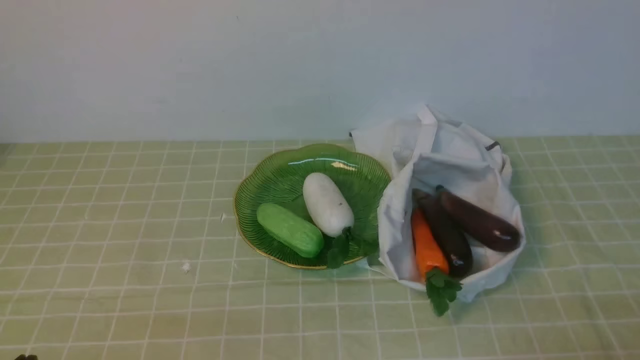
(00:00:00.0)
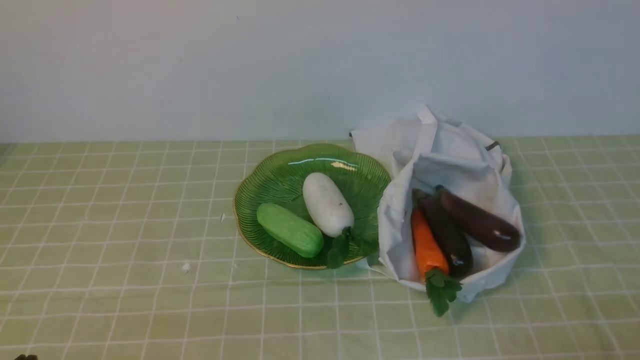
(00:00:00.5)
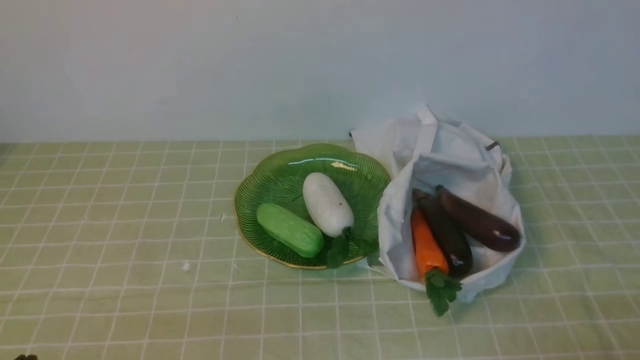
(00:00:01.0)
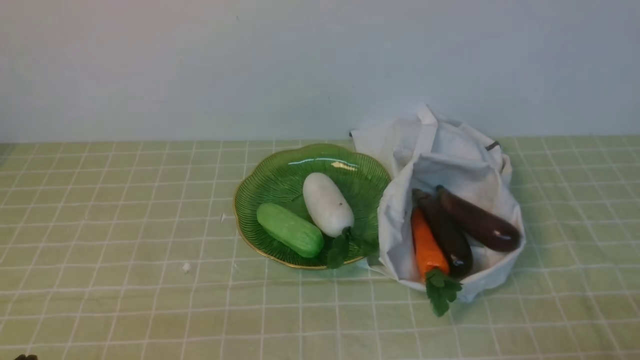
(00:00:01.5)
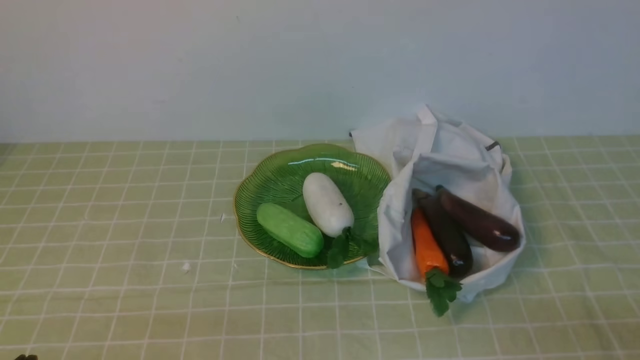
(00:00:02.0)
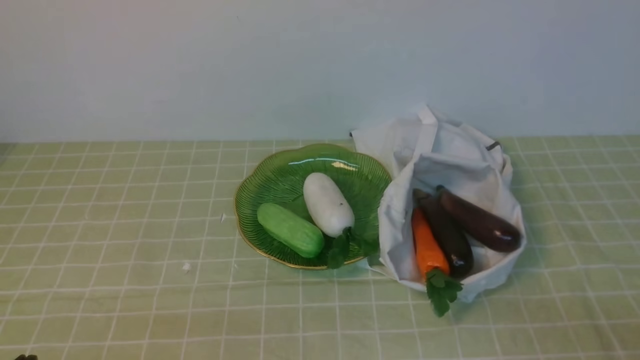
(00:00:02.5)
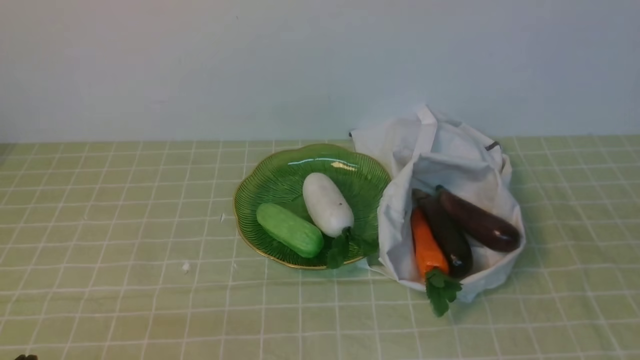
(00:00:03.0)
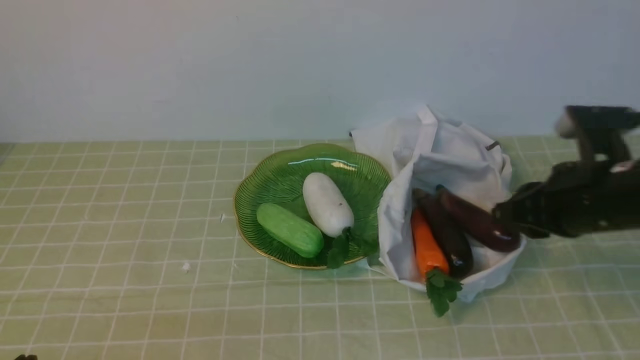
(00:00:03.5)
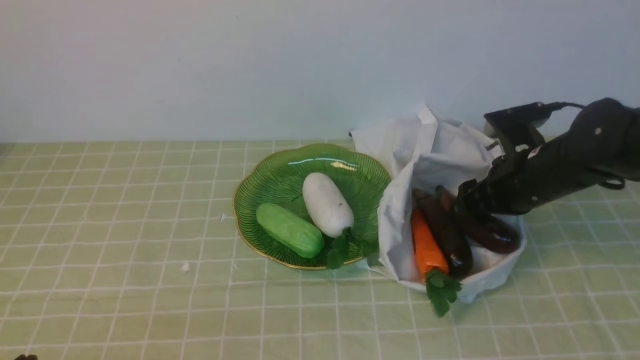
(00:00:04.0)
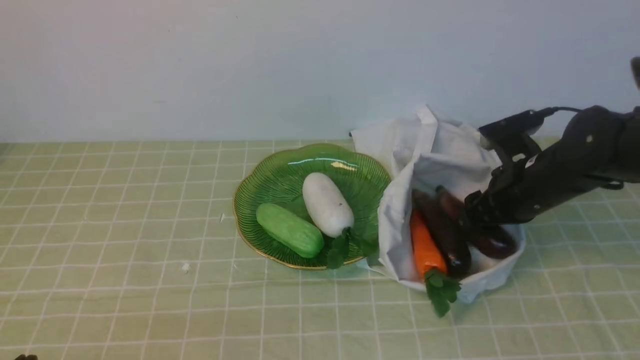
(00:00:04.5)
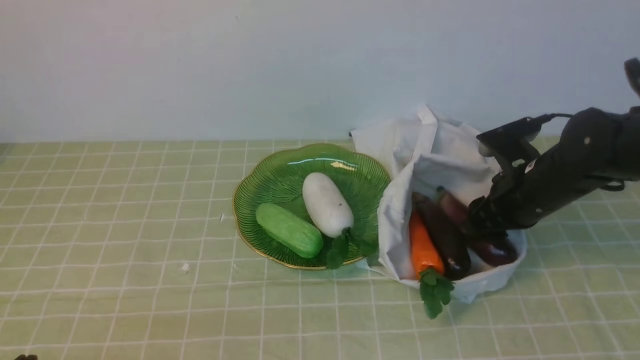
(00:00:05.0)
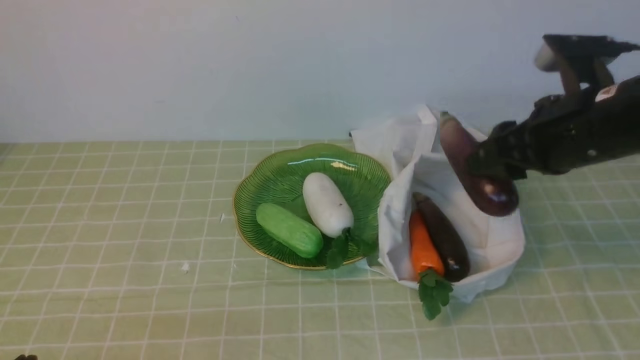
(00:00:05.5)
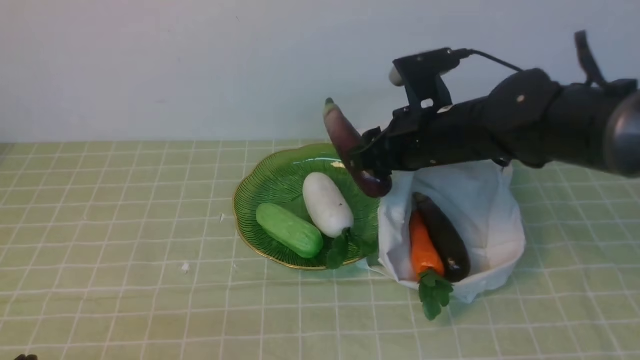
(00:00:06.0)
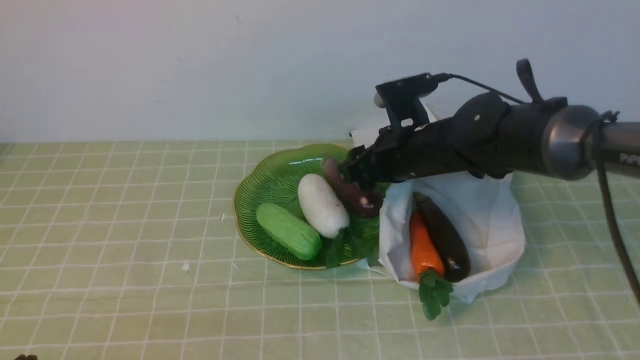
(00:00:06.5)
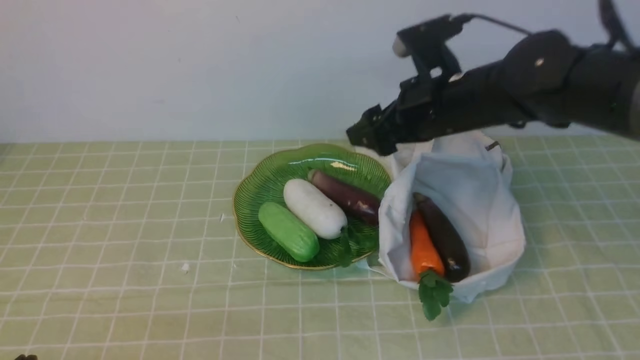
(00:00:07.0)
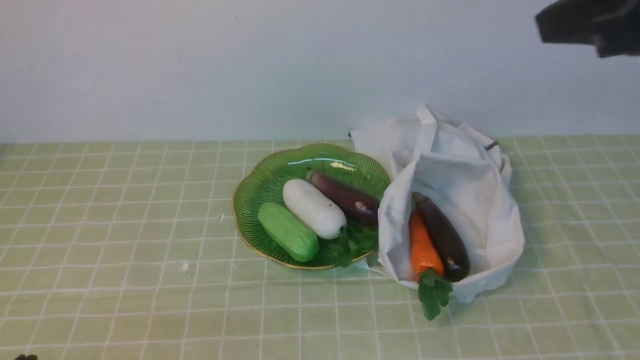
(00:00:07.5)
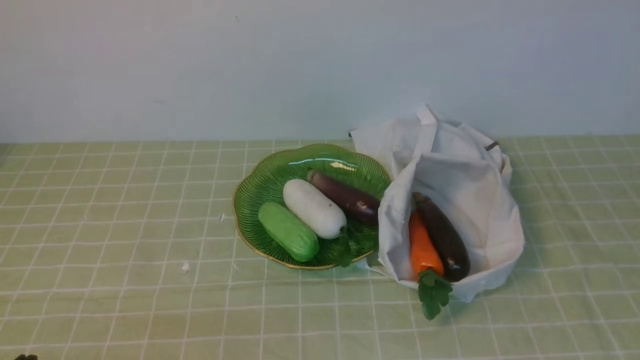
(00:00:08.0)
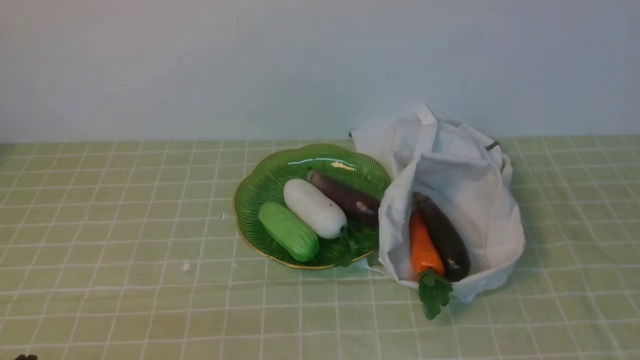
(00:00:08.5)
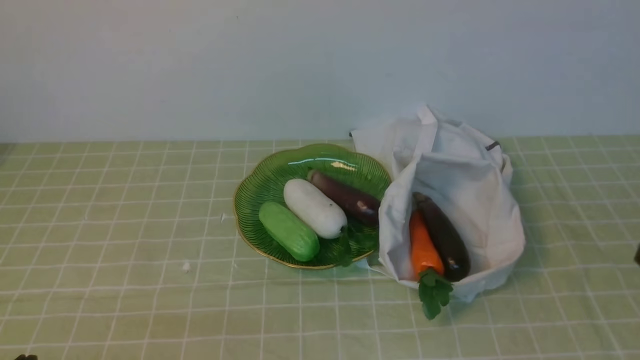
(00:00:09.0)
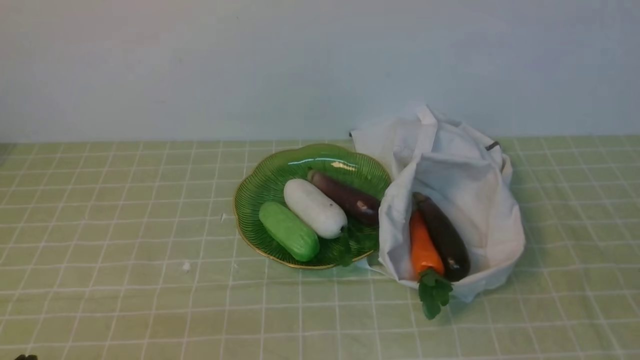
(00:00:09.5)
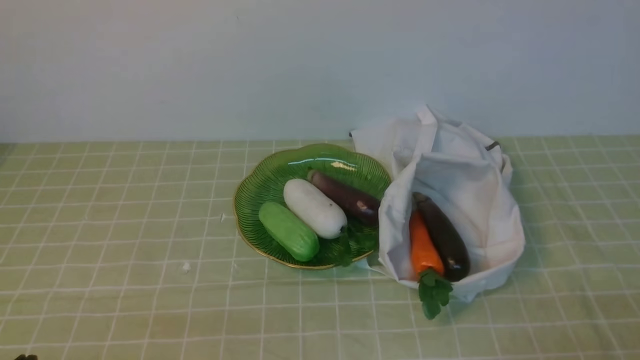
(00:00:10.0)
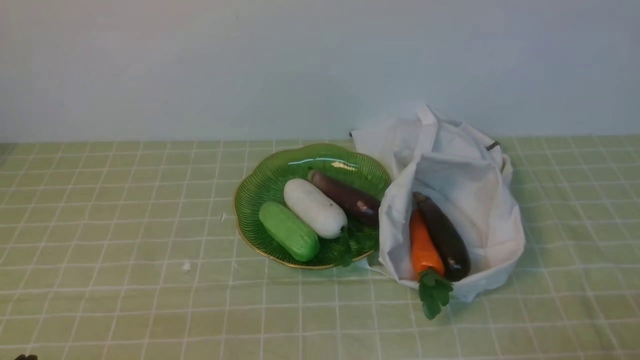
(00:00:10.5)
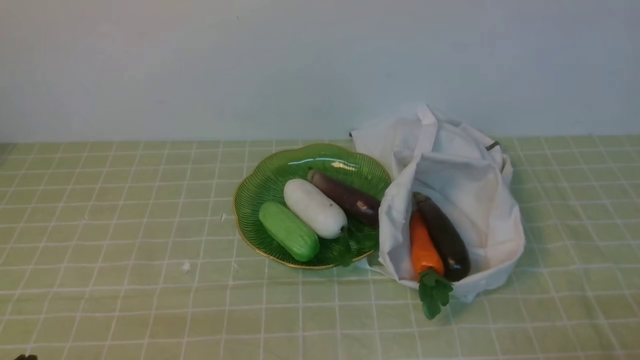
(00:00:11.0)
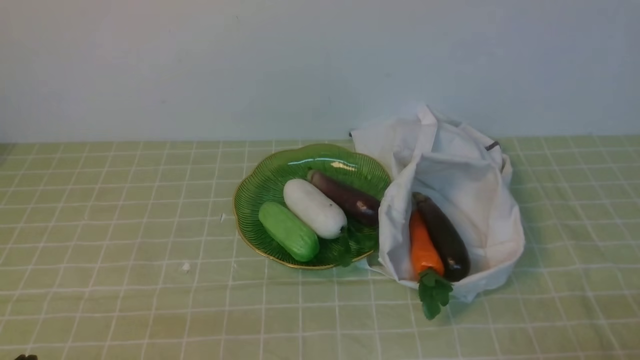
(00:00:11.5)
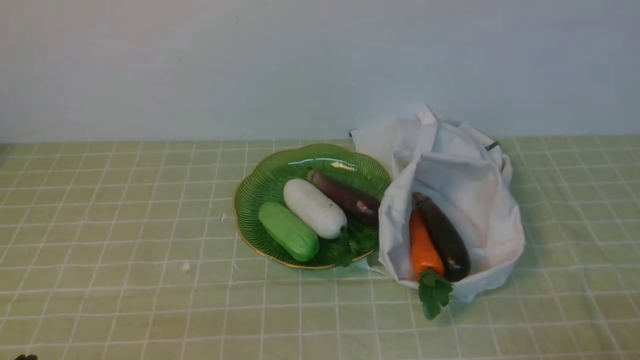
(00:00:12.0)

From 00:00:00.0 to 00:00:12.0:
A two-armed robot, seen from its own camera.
Task of the whole recording: take vegetables from bag on green coffee tablecloth place on plate.
Step, from 00:00:00.0 to 00:00:04.5: Grasp the eggplant with right gripper.
Step, from 00:00:05.0 to 00:00:06.5: Place the eggplant on the plate with right gripper.
From 00:00:02.0 to 00:00:04.0: The right gripper goes some 30 cm forward, and opens up.
From 00:00:04.0 to 00:00:06.0: The right gripper shifts approximately 10 cm to the left.
From 00:00:06.0 to 00:00:08.0: The right gripper goes roughly 35 cm backward, upward and to the right, and closes its fingers.
From 00:00:10.0 to 00:00:12.0: Neither gripper changes place.
